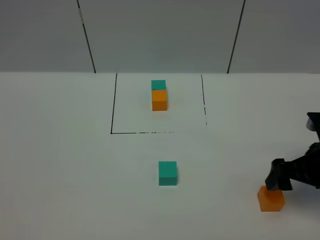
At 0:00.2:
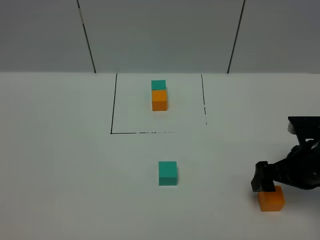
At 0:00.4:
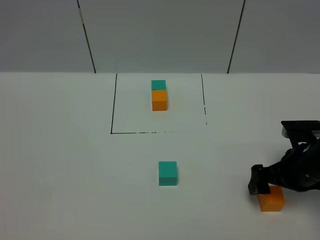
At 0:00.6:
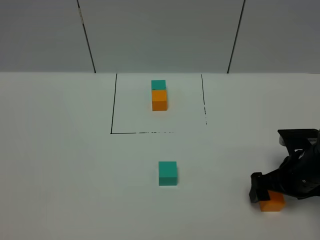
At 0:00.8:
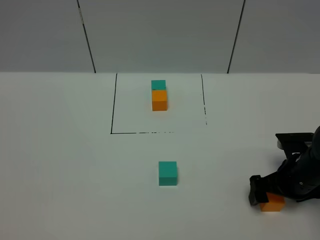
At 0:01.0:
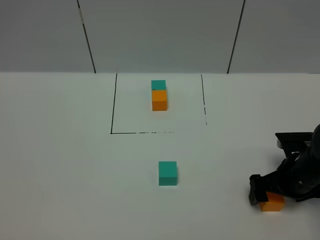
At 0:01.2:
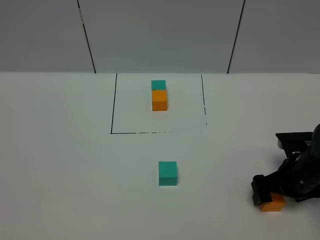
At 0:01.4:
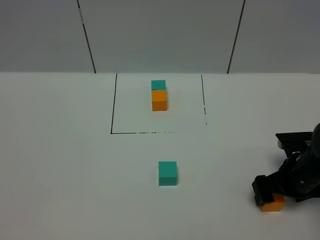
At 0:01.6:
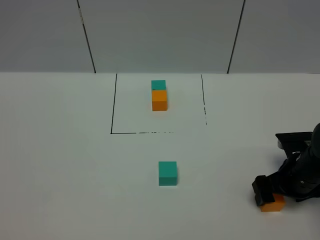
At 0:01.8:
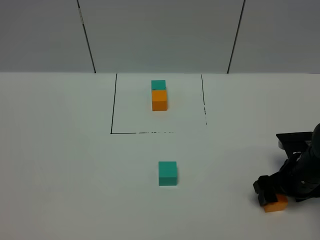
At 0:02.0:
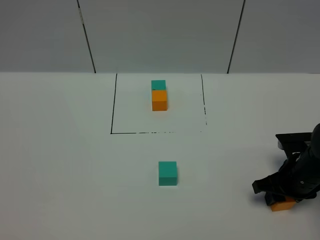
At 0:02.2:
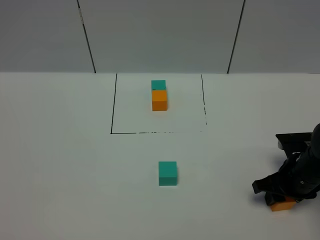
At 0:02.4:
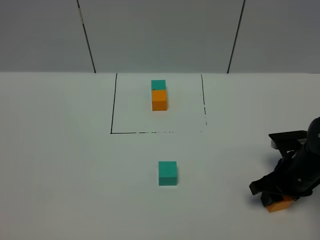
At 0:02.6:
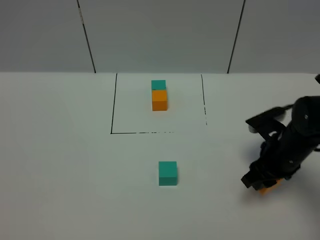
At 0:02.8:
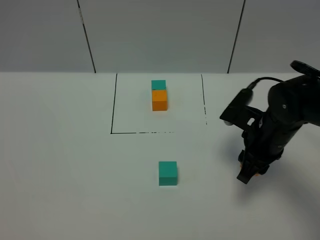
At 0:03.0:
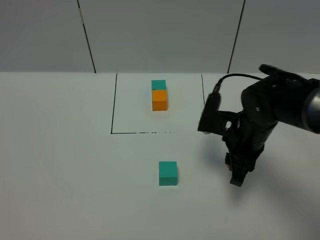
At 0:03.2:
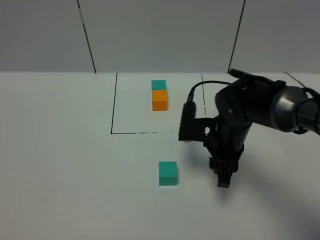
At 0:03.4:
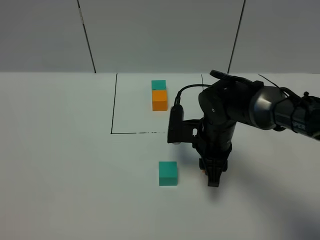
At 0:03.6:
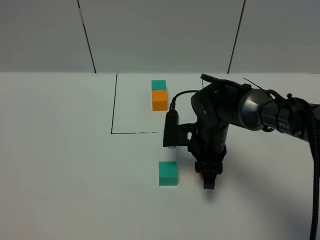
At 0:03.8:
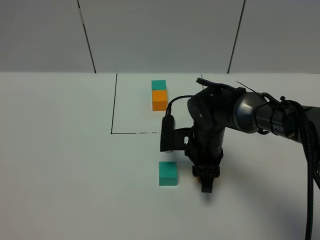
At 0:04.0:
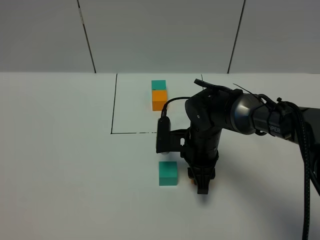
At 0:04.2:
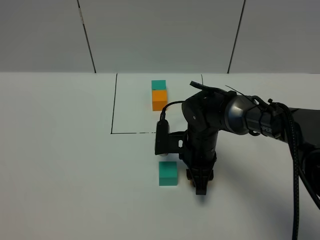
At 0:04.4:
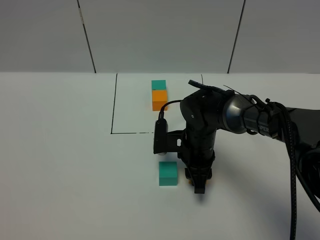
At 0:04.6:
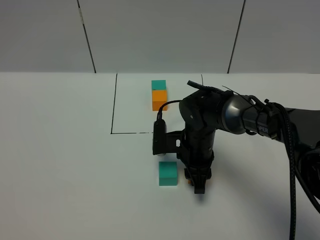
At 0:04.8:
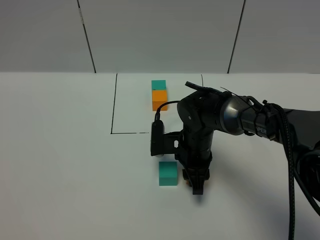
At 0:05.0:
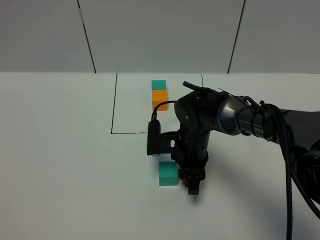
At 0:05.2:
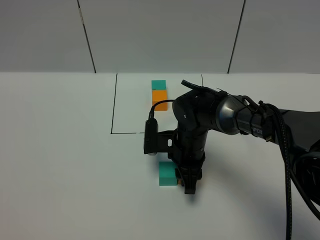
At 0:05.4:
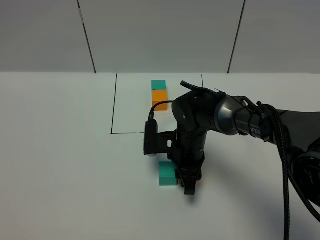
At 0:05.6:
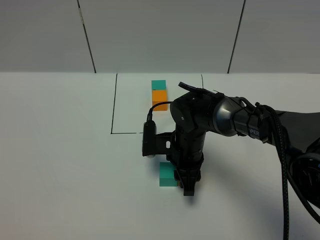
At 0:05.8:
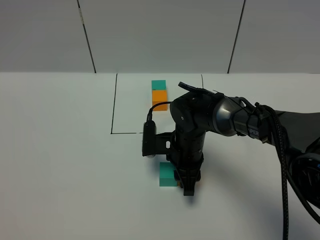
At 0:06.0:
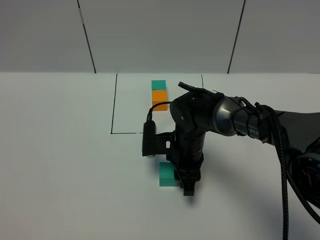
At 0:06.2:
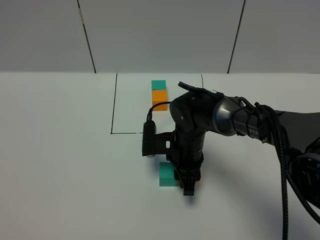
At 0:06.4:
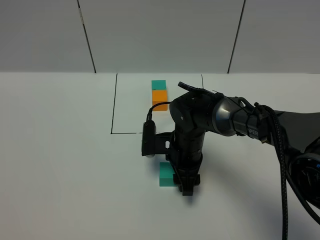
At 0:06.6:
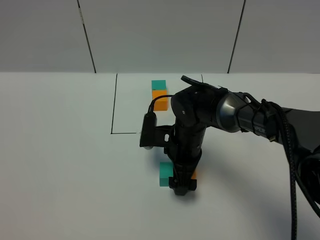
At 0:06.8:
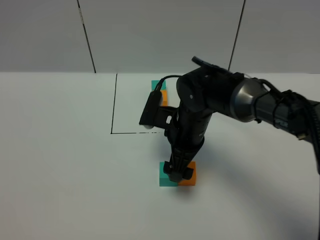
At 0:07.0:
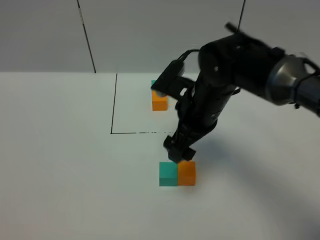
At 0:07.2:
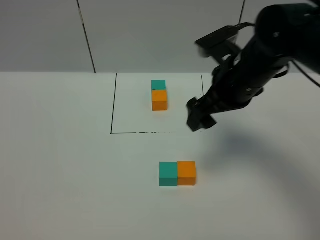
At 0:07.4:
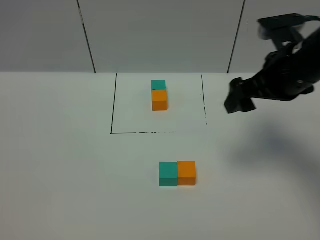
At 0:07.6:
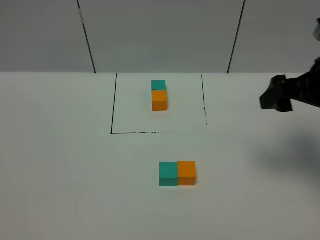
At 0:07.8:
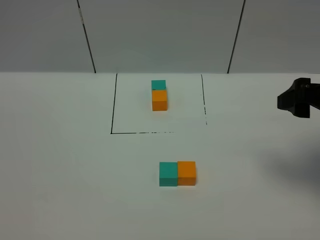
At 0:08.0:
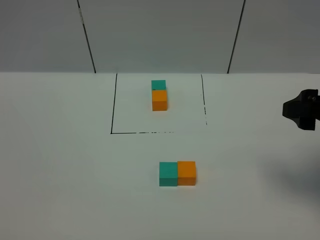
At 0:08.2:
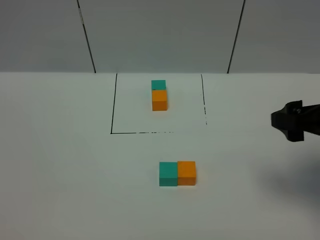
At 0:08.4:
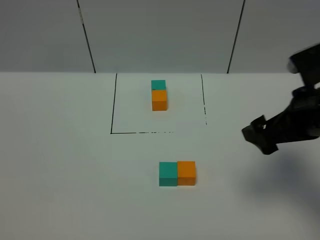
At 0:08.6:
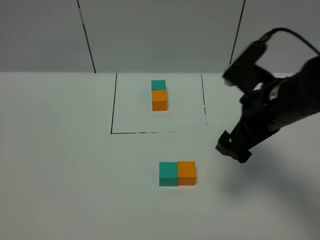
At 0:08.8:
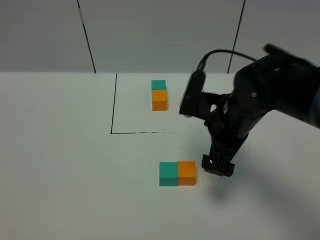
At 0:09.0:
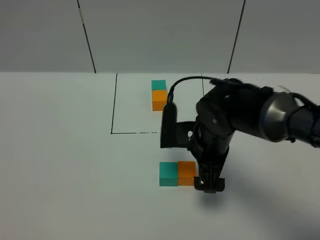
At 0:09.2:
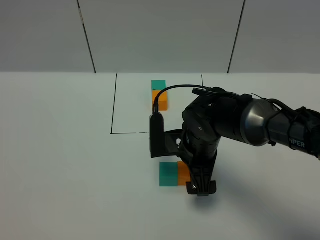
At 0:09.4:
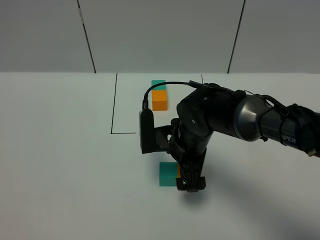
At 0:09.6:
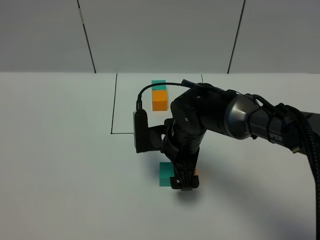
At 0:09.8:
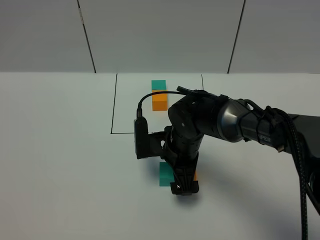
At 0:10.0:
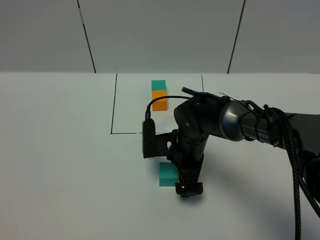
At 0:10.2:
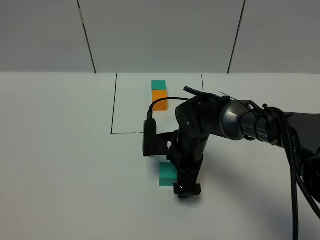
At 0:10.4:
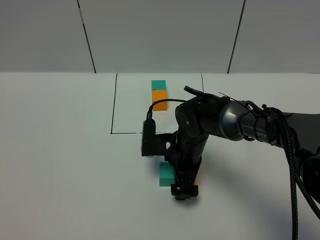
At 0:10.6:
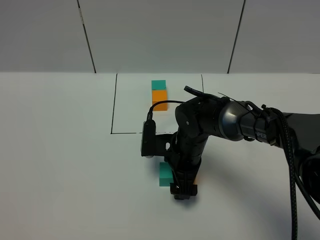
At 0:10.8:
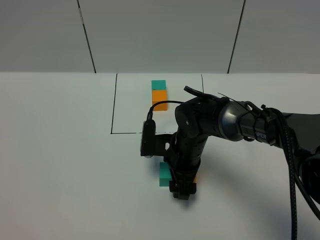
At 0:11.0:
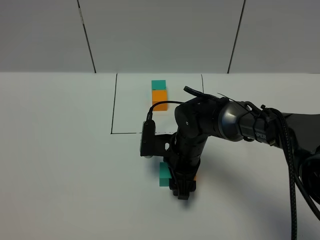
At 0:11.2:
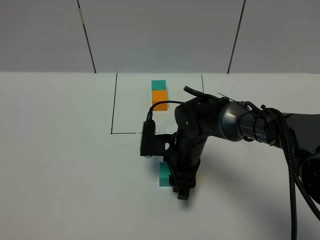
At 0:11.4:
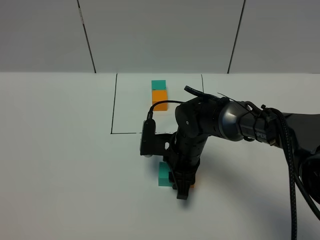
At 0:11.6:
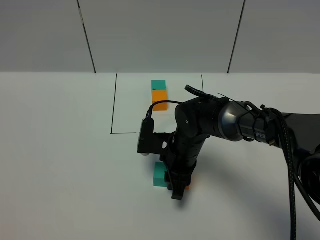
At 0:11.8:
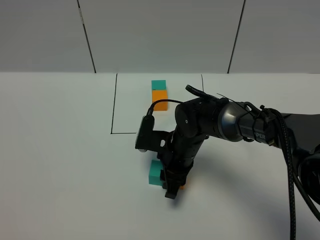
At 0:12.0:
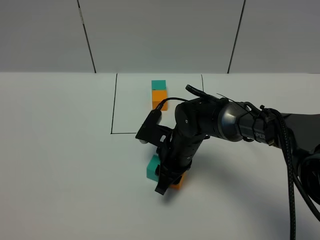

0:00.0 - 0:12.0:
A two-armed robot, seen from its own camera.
Task of the whole recording: According to the building block template in front, assemble the scattered blocks together.
Step, 0:00.0 - 0:06.2: Put the orange cube on the right of the green cube.
0:00.0 - 0:01.6: The right gripper shifts approximately 10 cm downward.
0:01.6 - 0:03.0: The right gripper goes approximately 15 cm to the left and upward, and closes.
0:03.0 - 0:04.4: The right gripper shifts roughly 10 cm to the left and downward.
0:04.4 - 0:06.0: The grippers move only a little.
0:06.0 - 0:07.6: The right gripper heads to the right and upward, covering some 30 cm, and opens its fingers.
0:07.6 - 0:09.0: The right gripper heads to the left and downward, covering some 25 cm.
0:09.0 - 0:10.4: The right gripper moves downward, approximately 5 cm.
0:10.4 - 0:12.0: The right gripper closes.

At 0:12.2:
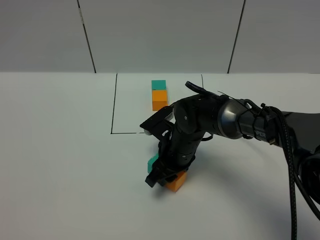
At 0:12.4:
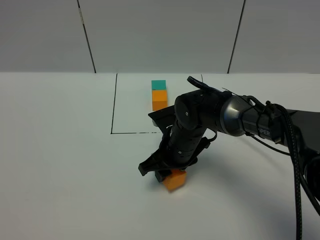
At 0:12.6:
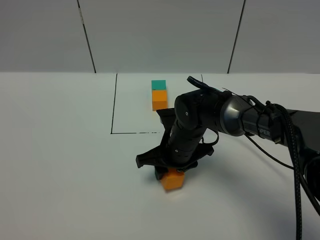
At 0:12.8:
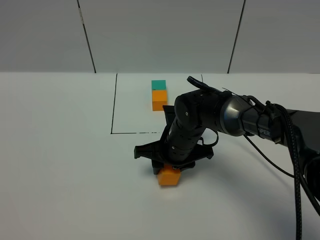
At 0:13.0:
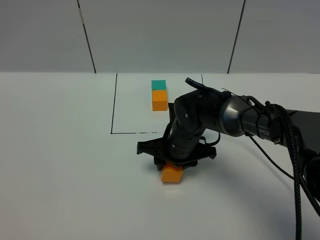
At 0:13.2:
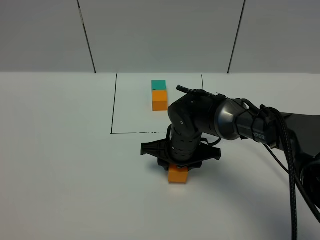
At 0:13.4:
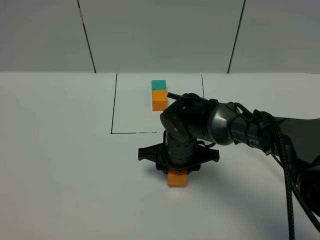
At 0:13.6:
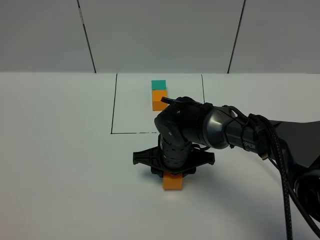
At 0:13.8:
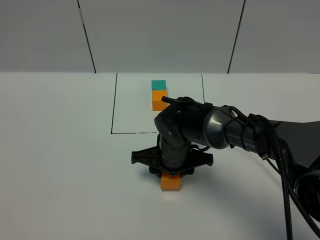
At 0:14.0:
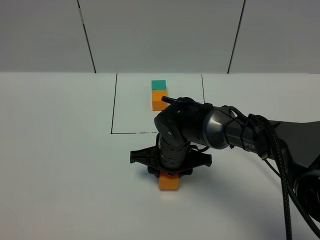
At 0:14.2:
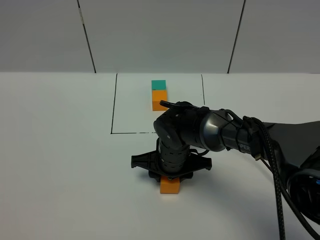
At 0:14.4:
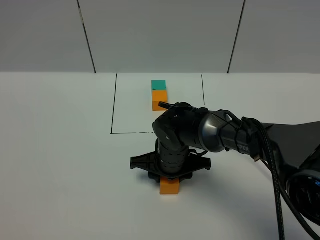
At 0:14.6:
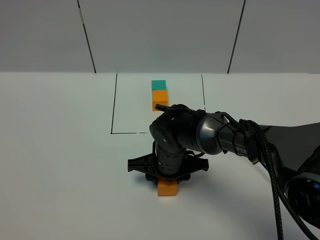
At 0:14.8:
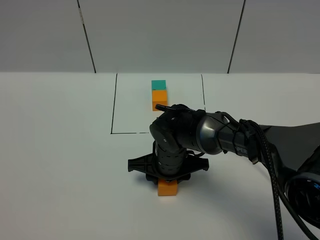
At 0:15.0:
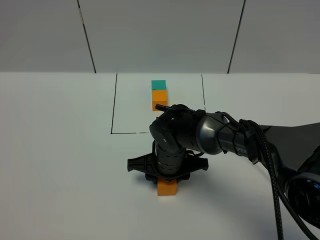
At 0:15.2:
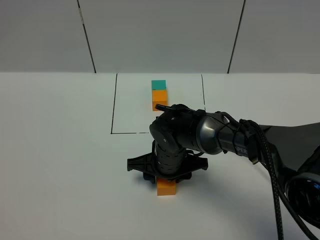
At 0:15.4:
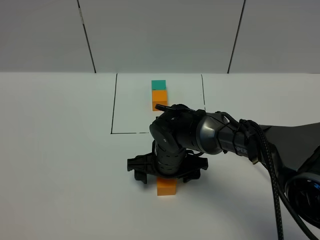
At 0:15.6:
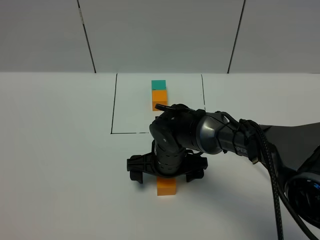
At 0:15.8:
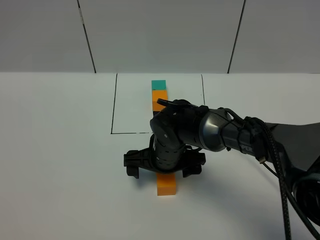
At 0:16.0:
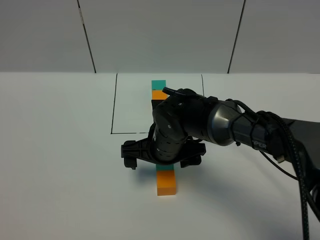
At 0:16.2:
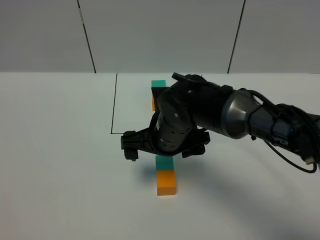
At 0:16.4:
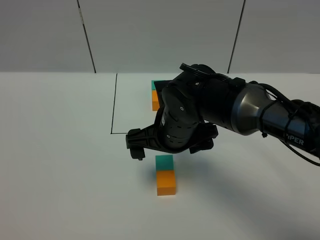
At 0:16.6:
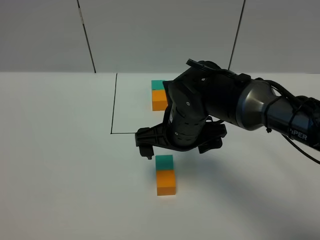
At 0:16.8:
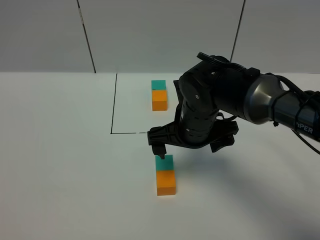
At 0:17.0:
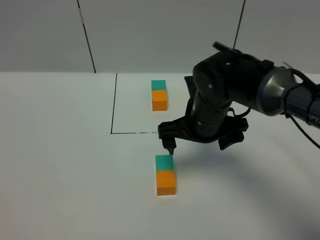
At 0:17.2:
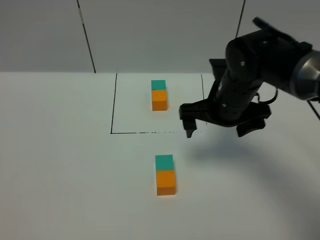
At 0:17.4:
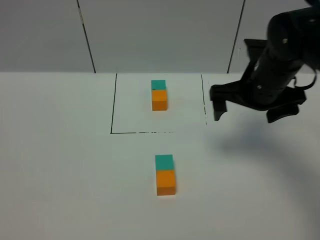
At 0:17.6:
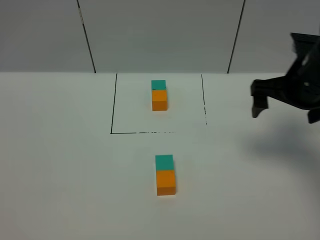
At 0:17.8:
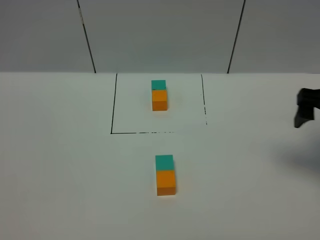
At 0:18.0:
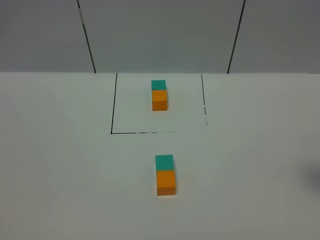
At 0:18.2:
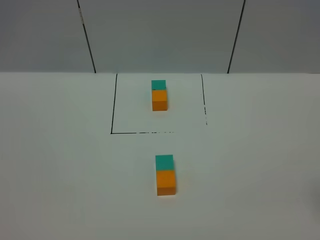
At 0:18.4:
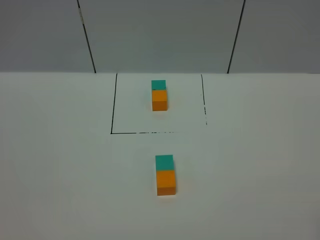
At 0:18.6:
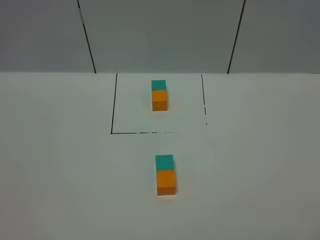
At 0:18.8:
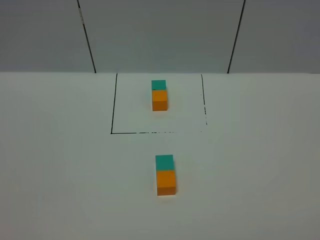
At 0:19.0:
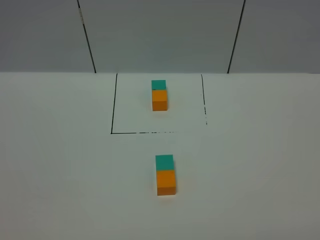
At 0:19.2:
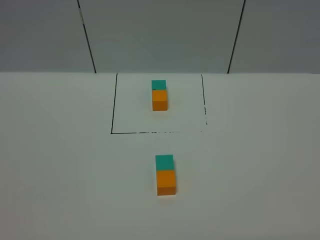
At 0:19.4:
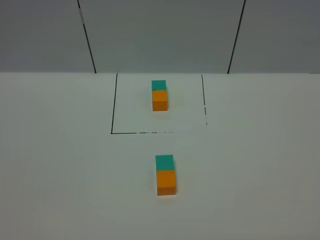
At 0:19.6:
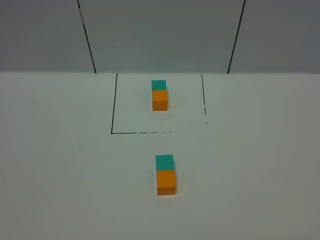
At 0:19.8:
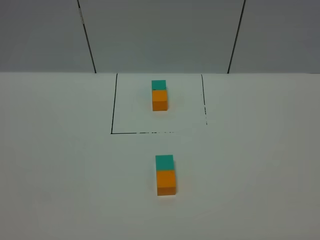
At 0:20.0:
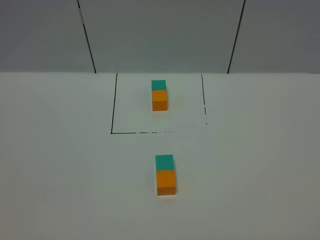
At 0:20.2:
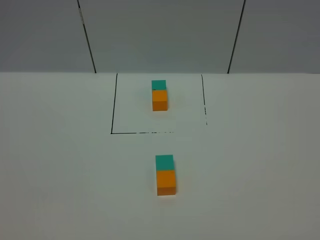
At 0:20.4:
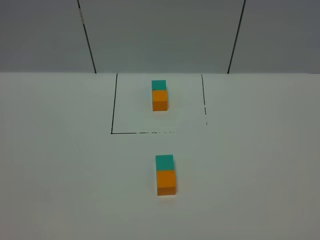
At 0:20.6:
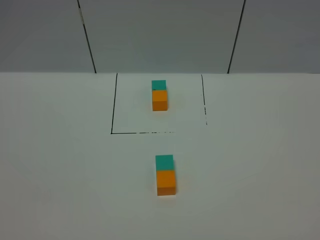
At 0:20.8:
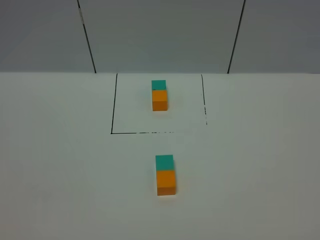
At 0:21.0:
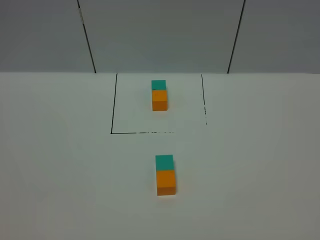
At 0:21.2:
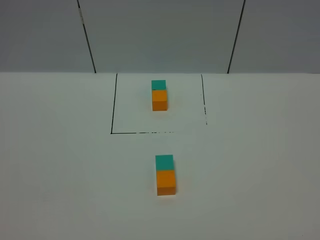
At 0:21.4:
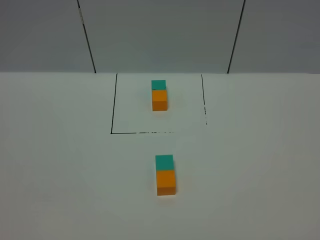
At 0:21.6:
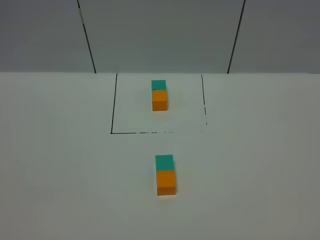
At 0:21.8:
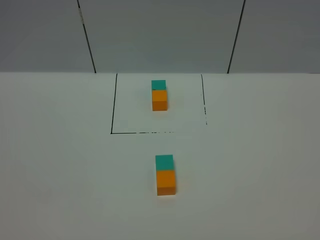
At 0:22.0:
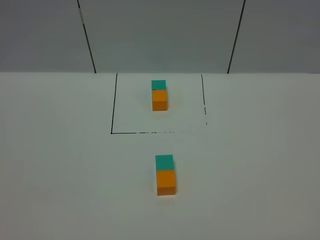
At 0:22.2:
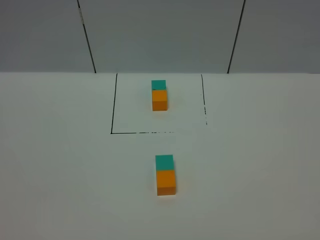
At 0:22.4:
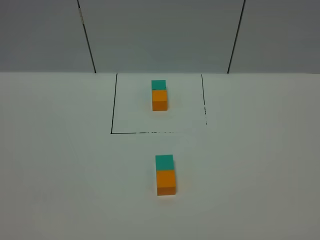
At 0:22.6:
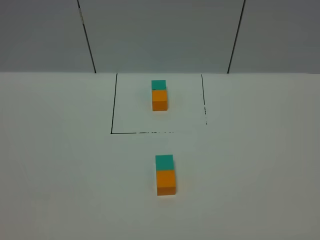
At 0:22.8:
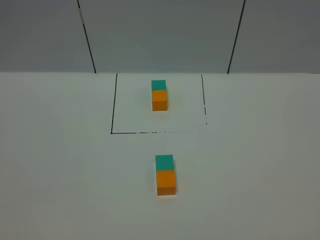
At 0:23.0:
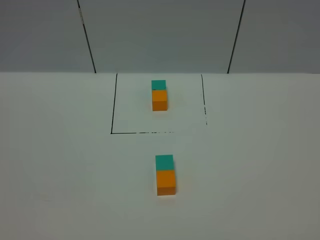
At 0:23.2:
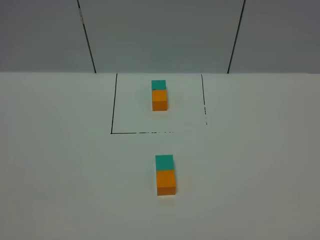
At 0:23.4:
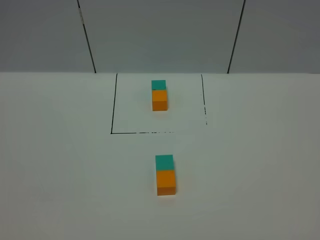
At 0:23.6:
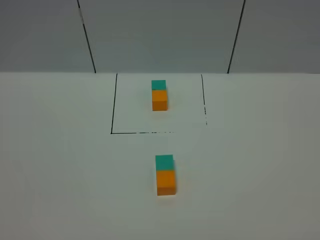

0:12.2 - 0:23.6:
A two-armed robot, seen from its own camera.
Task of the whole recording: According to the building block template in front, assemble the scattered blocks together.
Step, 0:12.2 - 0:15.2: Adjust the pose of the building blocks.
0:13.6 - 0:15.0: The grippers stay close to where they were, moving slightly.
0:15.0 - 0:16.4: The right gripper shifts some 10 cm upward, and opens.
0:16.4 - 0:17.8: The right gripper travels to the right by about 30 cm.
0:17.8 - 0:19.4: The right gripper shifts about 30 cm backward.
0:20.8 - 0:23.6: The two grippers keep their place.
